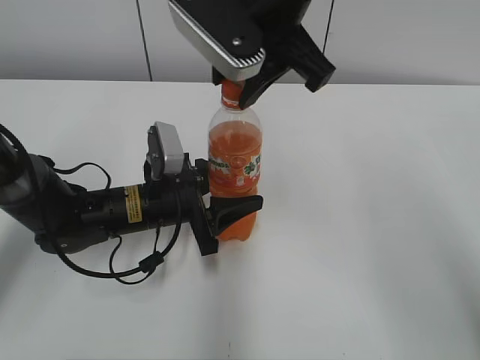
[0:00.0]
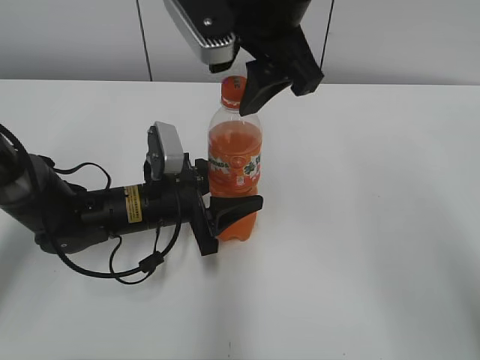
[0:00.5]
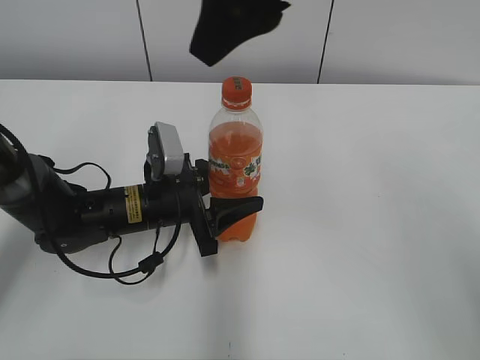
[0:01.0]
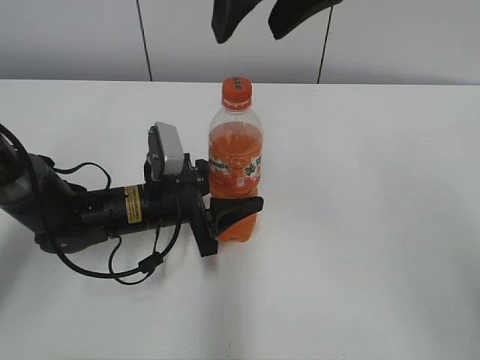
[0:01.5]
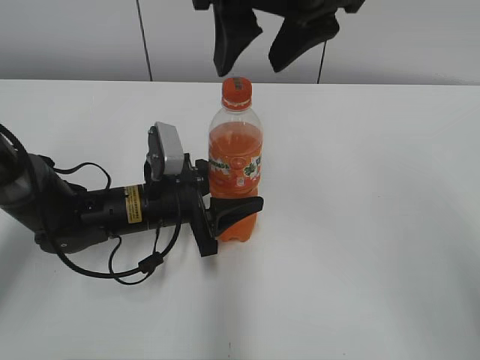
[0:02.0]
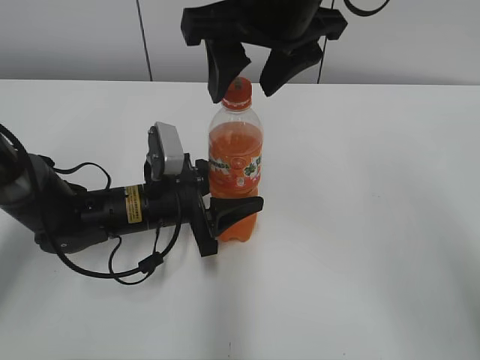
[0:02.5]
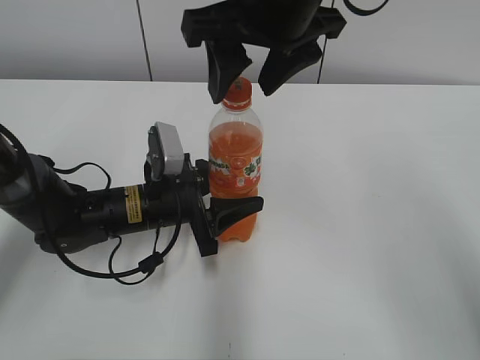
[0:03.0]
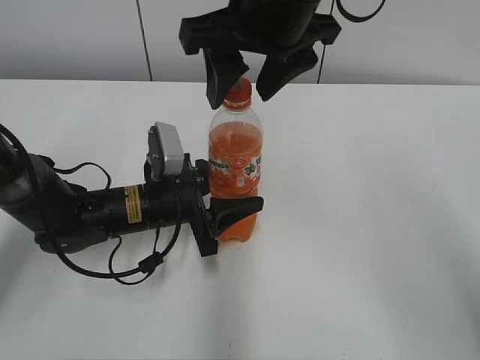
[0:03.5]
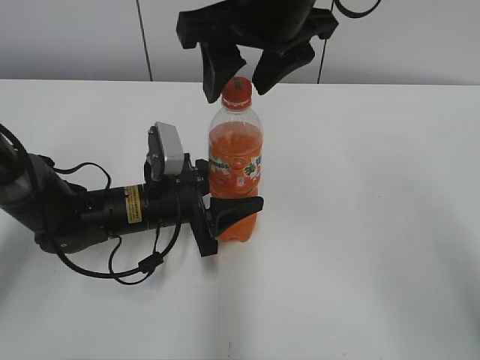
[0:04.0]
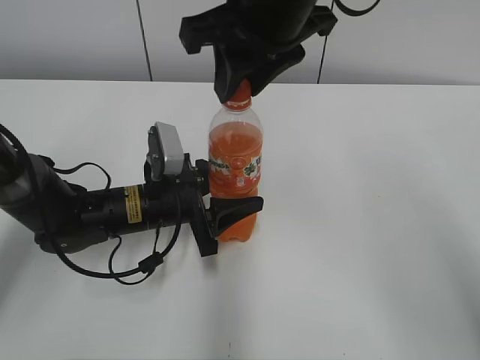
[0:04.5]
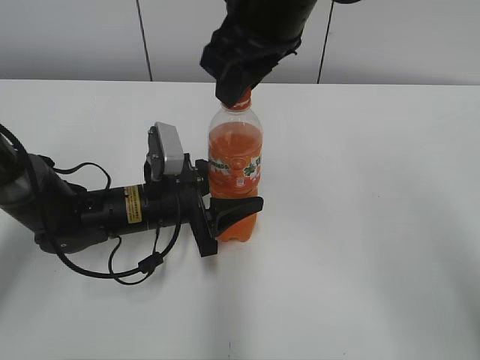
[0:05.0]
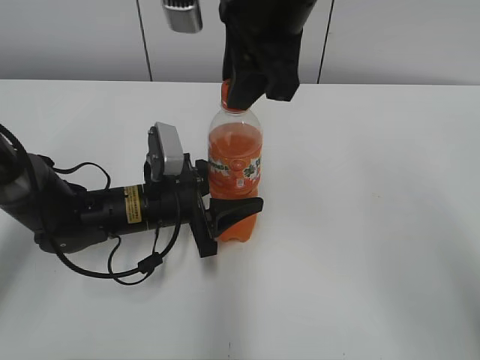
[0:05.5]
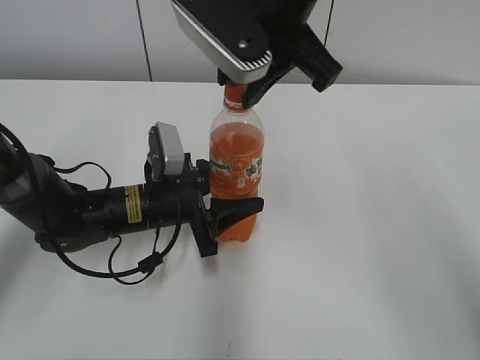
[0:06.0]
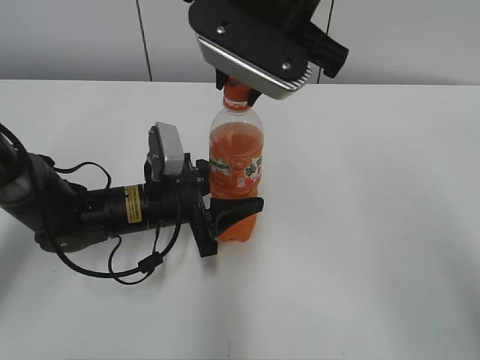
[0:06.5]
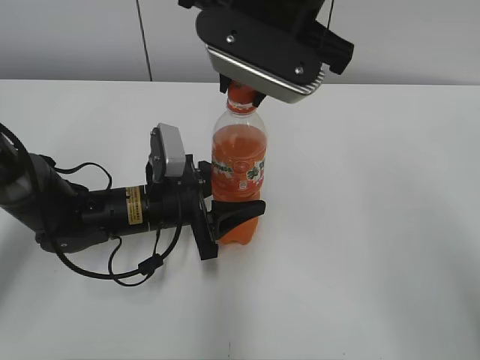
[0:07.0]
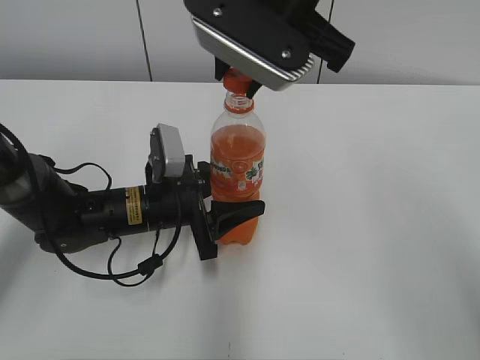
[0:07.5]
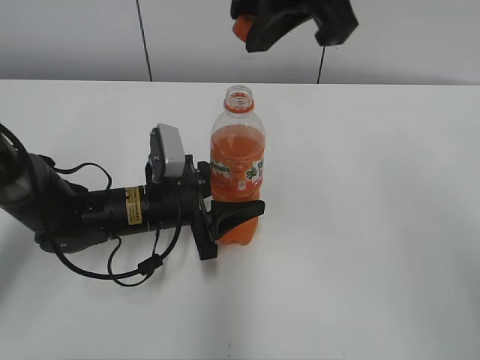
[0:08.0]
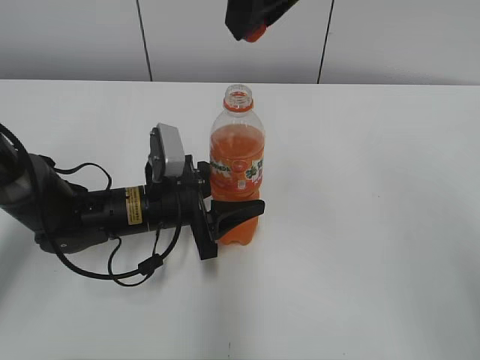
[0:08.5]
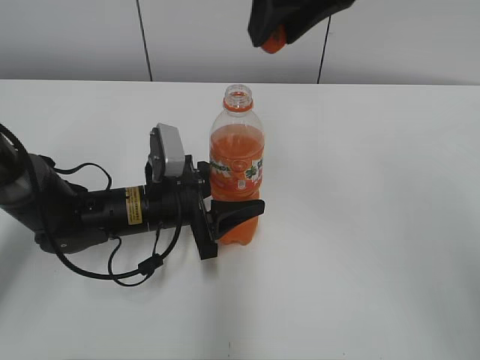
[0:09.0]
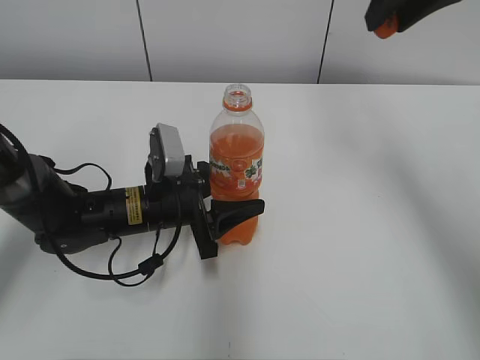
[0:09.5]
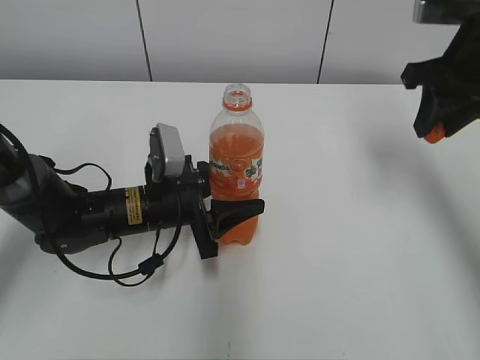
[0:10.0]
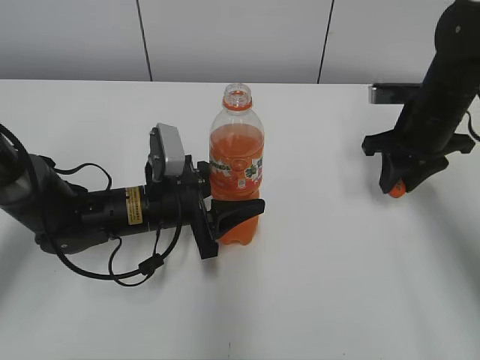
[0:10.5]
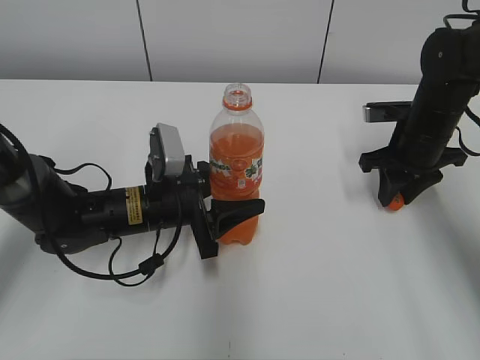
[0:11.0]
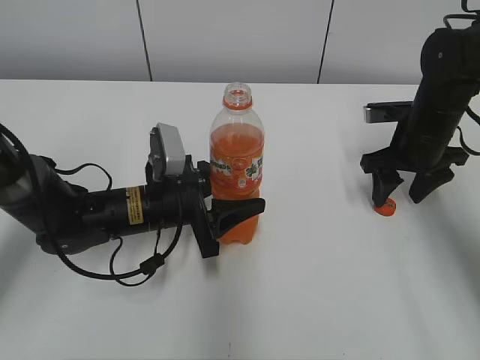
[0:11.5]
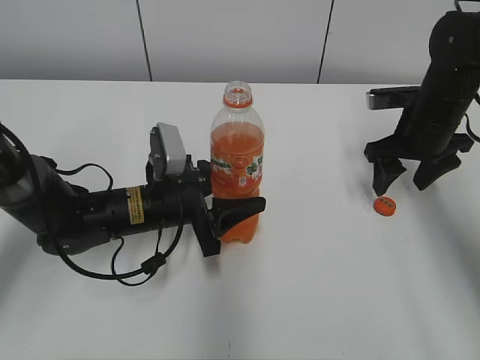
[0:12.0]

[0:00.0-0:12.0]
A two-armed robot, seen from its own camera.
Step, 0:00.0 to 0:07.5: Twist the bottle cap with the right hand.
Step, 0:08.0 to 0:11.5: Place the bottle cap on the right.
0:00.0 to 0:02.0: The right gripper opens.
0:02.0 to 0:04.0: There are only small adjustments of the grippers.
0:04.0 to 0:06.0: The right gripper closes its fingers.
0:06.0 to 0:08.0: The right gripper goes roughly 5 cm upward.
0:08.0 to 0:10.0: The right gripper shifts roughly 25 cm to the right and downward.
0:10.0 to 0:12.0: The right gripper travels downward by some 15 cm, and opens.

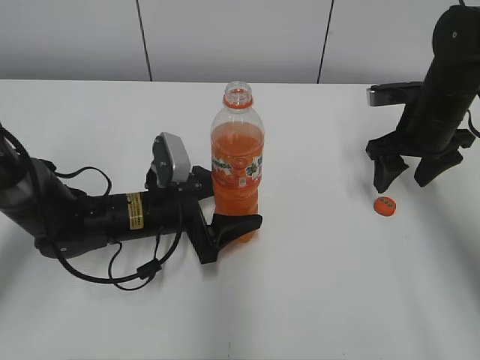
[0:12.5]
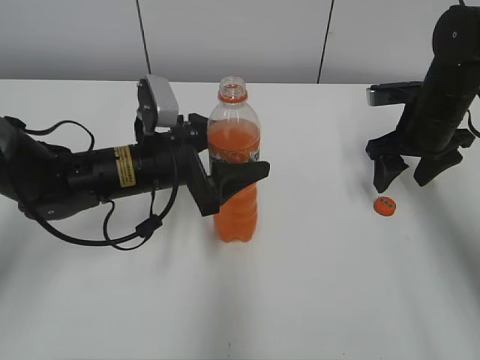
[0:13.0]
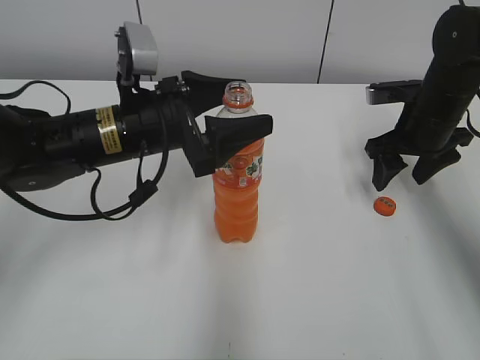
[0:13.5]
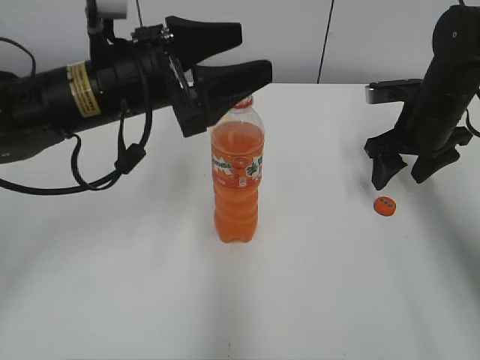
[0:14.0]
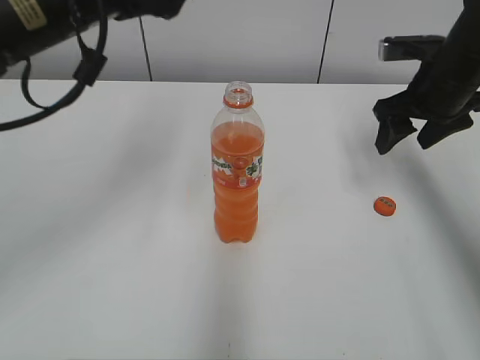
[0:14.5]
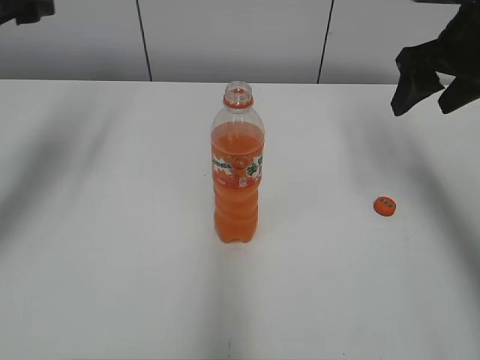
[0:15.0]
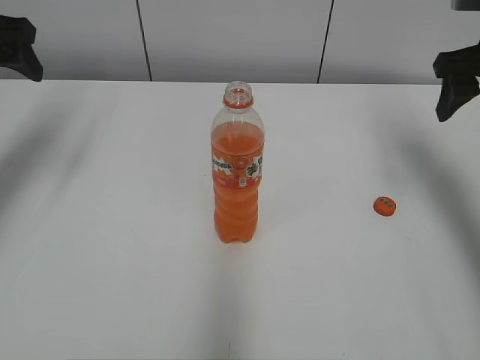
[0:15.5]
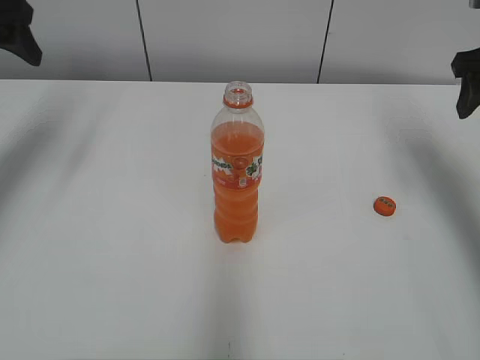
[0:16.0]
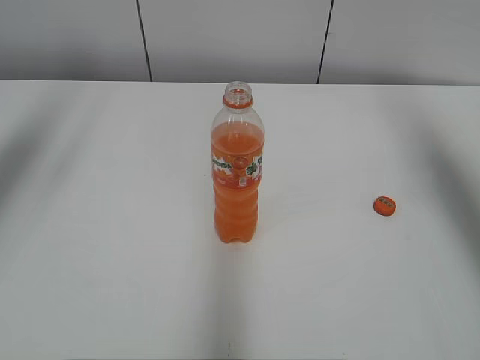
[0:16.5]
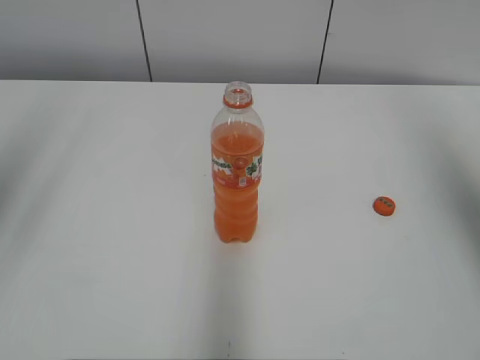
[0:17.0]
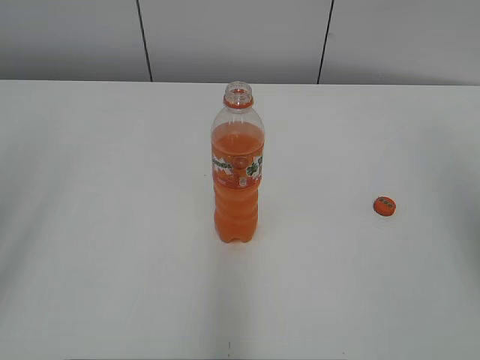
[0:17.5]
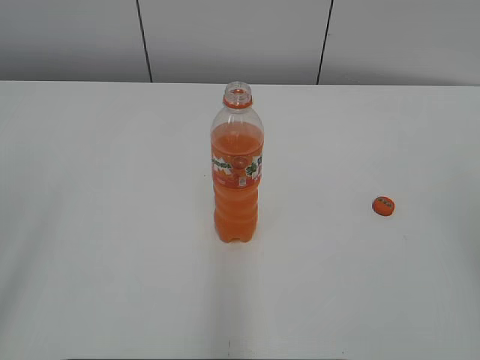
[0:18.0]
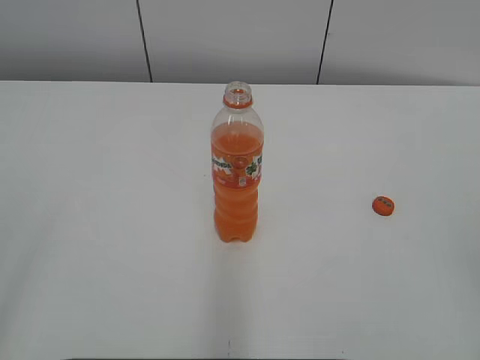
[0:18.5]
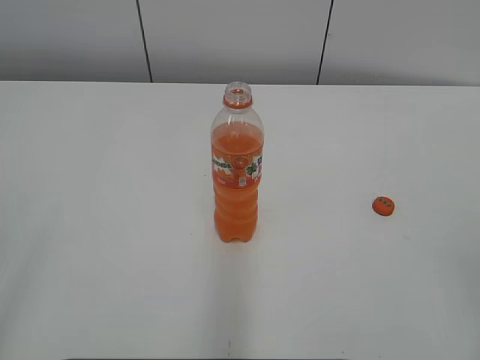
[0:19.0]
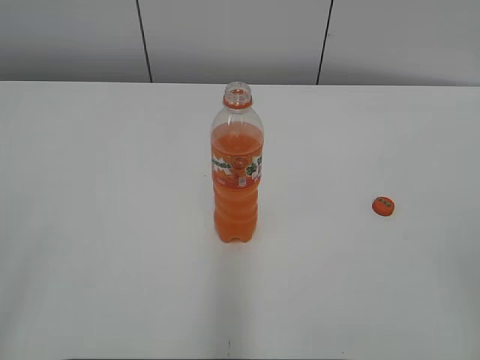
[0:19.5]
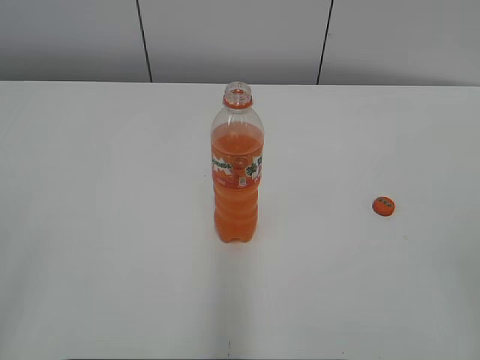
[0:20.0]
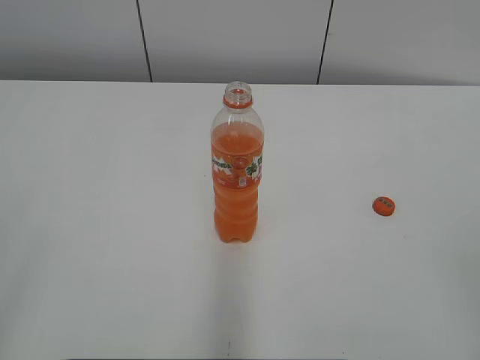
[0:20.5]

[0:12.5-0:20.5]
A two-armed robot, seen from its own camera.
0:12.5 to 0:14.5: The left gripper shifts some 25 cm upward. Meanwhile the right gripper is displaced upward by roughly 5 cm.
0:14.5 to 0:16.5: The right gripper is displaced upward and backward by about 15 cm. The left gripper goes some 20 cm to the left and upward.
0:16.5 to 0:18.5: Both grippers travel together backward, some 30 cm.

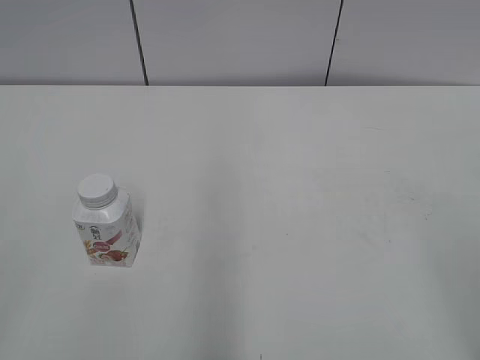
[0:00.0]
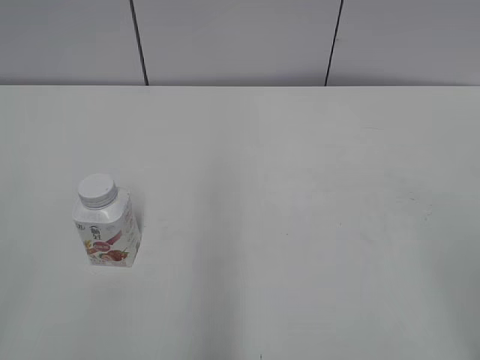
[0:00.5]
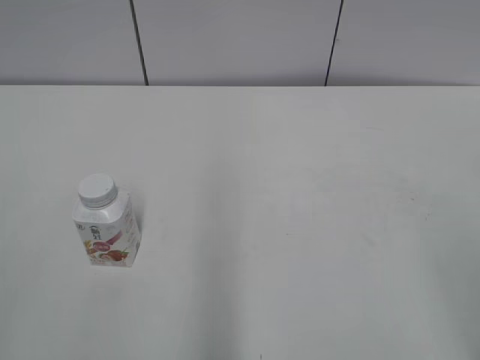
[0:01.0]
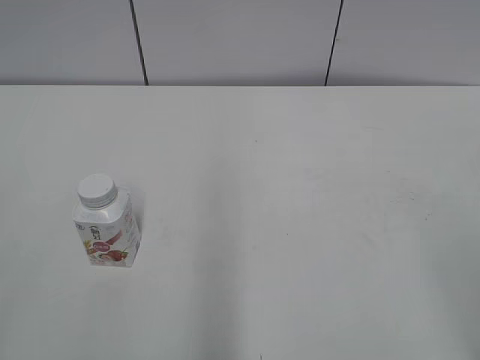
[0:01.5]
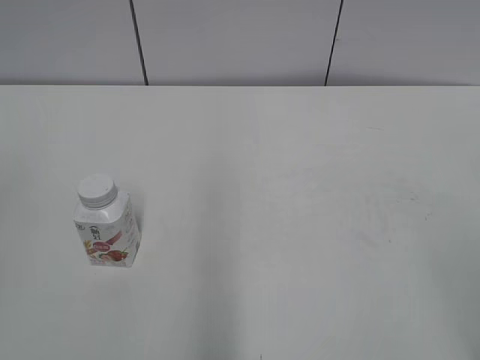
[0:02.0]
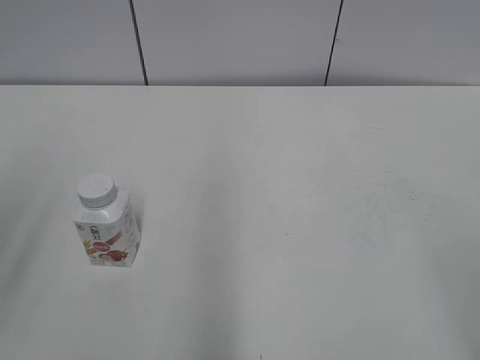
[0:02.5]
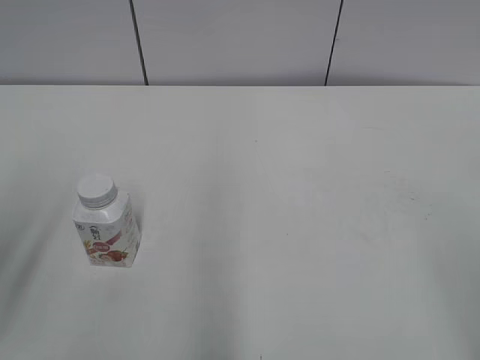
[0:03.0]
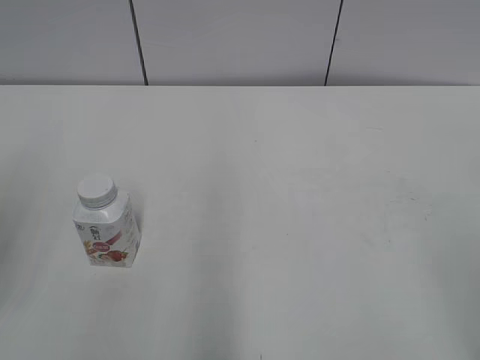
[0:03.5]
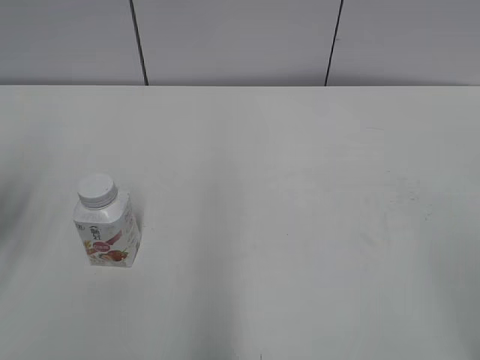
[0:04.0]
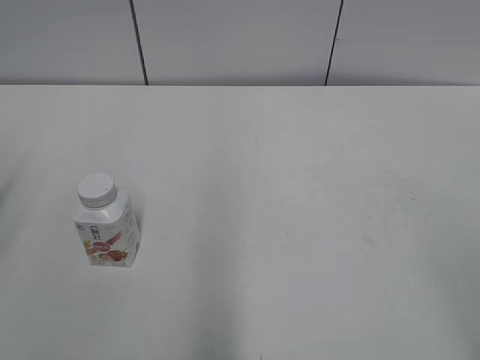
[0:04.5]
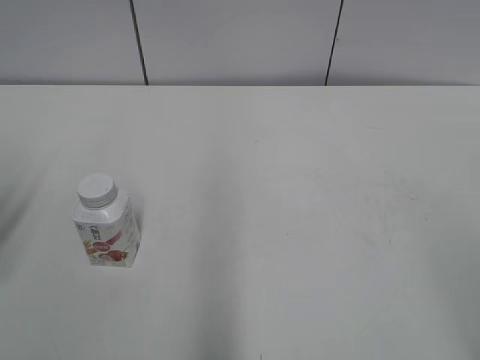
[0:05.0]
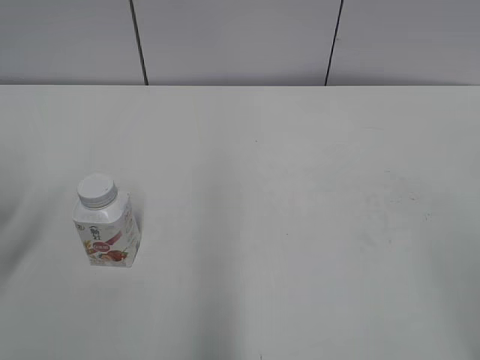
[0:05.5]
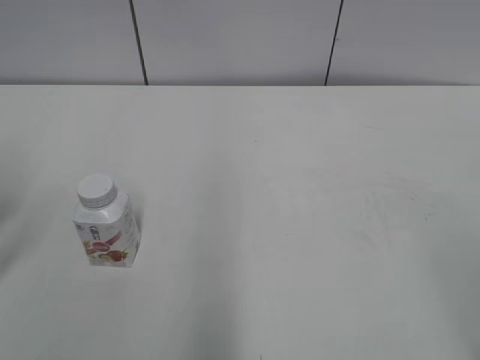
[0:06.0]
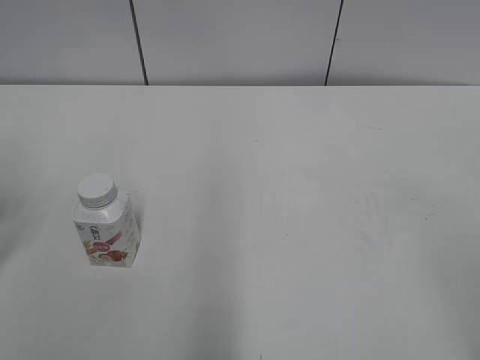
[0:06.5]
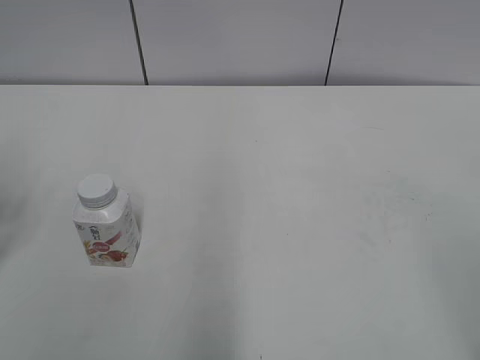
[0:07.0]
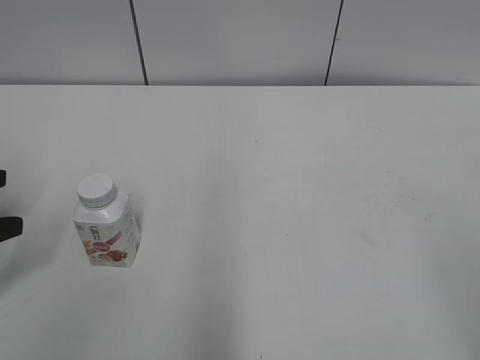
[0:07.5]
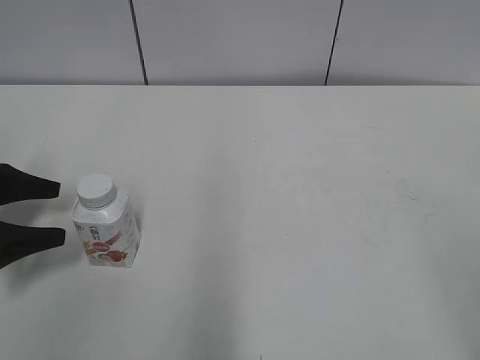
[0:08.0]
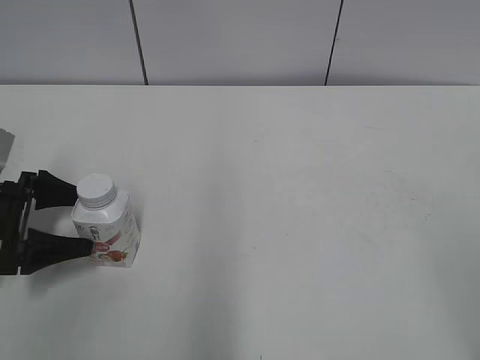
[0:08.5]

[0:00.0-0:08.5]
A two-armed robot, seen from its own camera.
0:06.5 to 0:08.5: The left gripper heads downward, forward and to the right, covering about 15 cm, and opens up.
